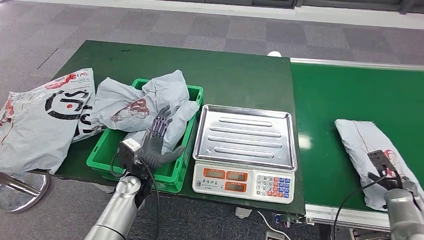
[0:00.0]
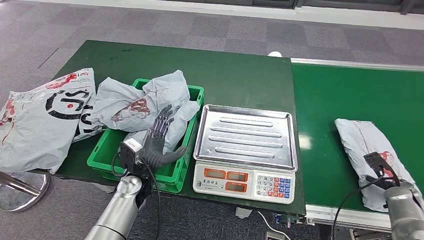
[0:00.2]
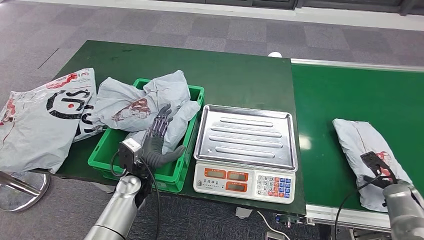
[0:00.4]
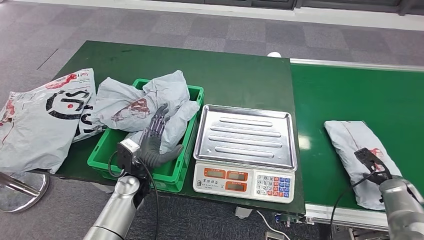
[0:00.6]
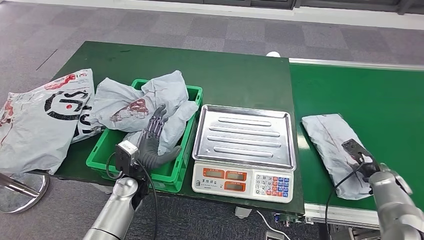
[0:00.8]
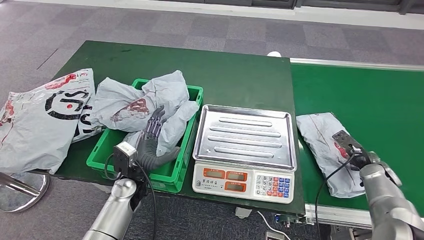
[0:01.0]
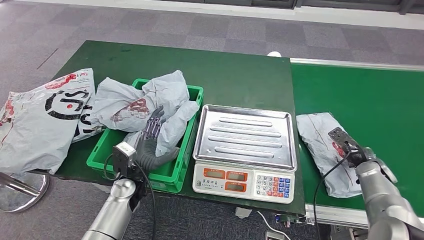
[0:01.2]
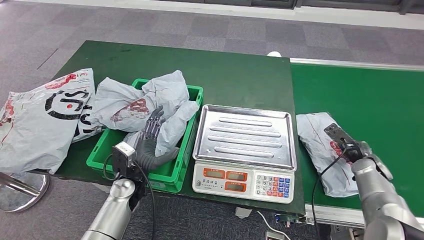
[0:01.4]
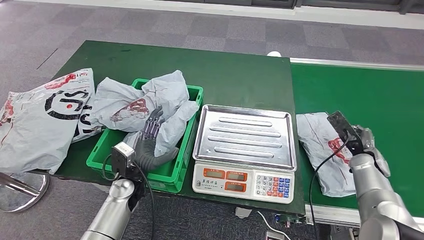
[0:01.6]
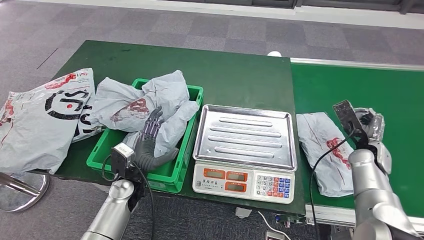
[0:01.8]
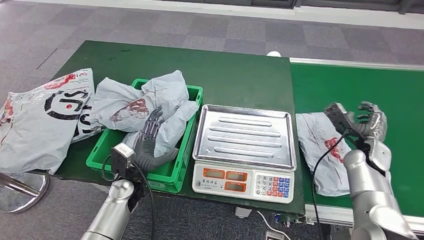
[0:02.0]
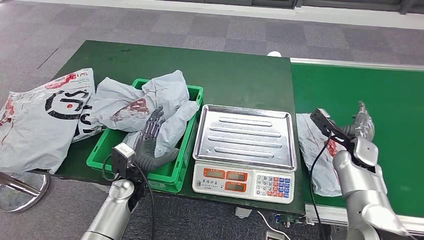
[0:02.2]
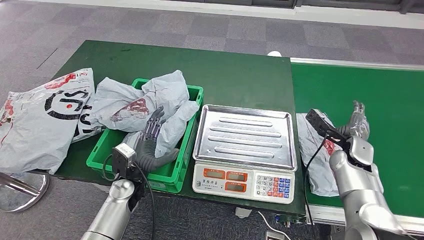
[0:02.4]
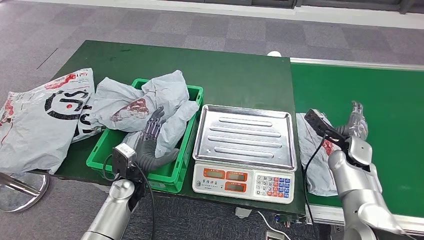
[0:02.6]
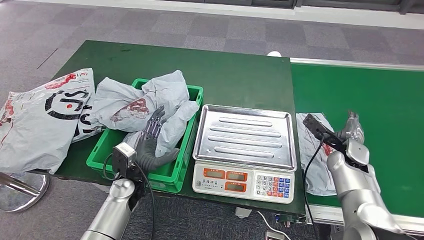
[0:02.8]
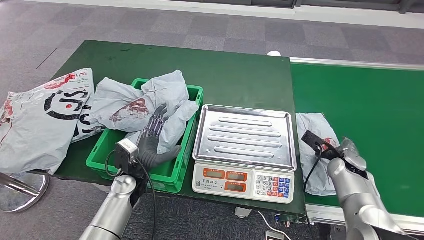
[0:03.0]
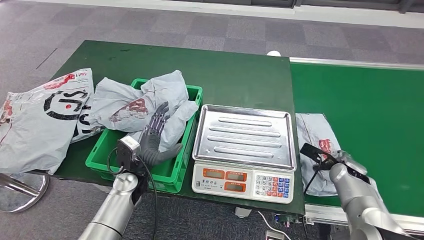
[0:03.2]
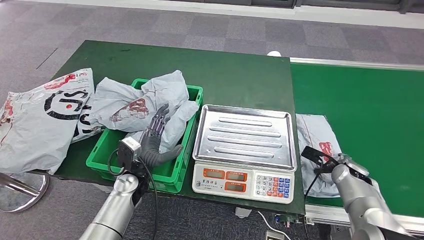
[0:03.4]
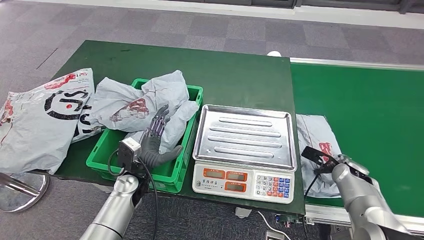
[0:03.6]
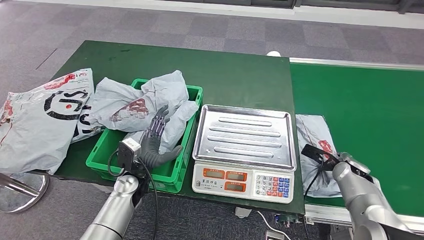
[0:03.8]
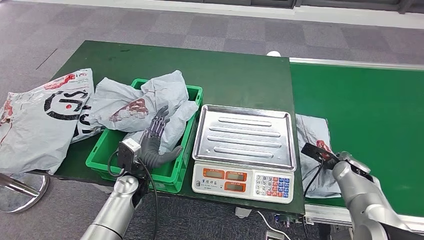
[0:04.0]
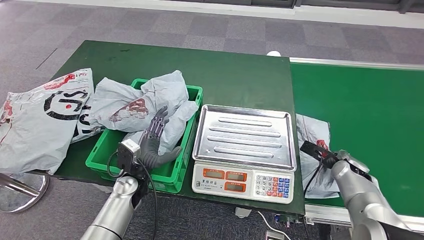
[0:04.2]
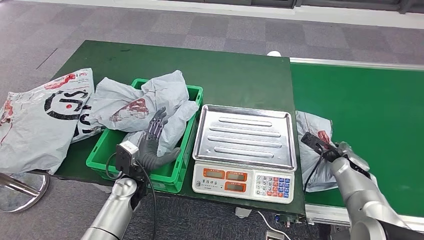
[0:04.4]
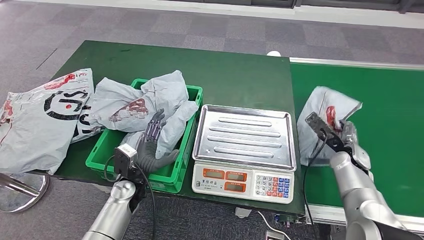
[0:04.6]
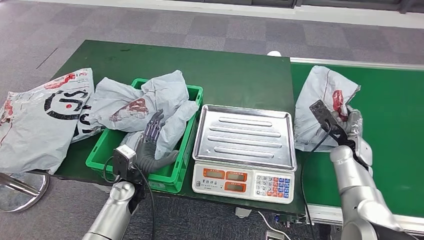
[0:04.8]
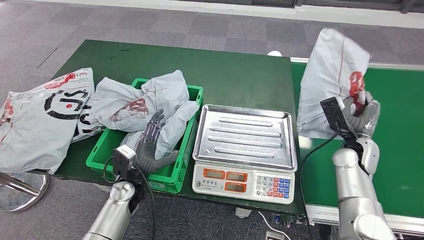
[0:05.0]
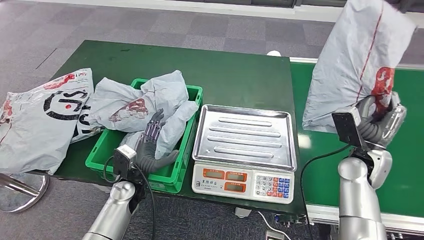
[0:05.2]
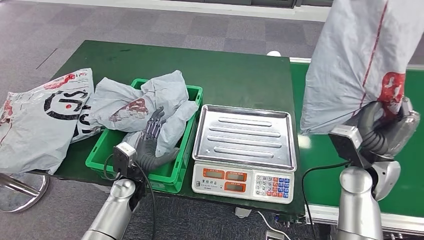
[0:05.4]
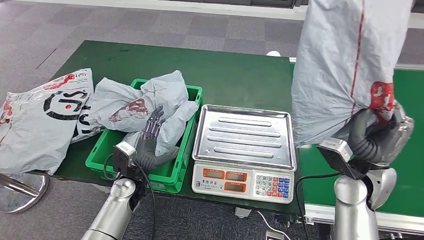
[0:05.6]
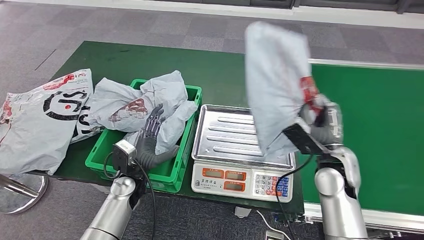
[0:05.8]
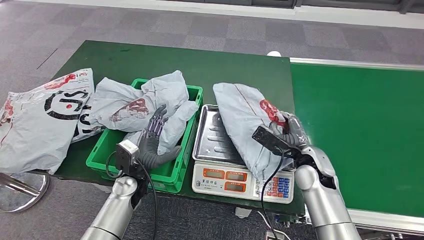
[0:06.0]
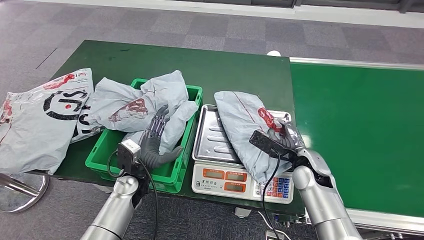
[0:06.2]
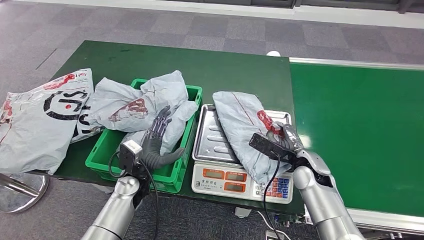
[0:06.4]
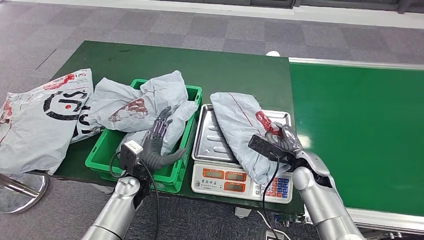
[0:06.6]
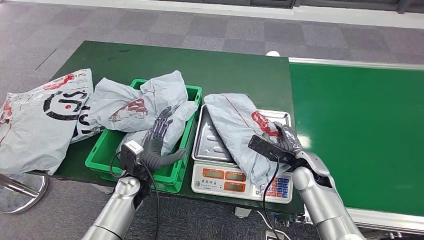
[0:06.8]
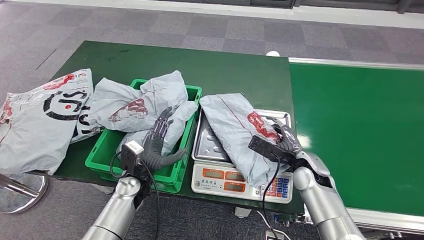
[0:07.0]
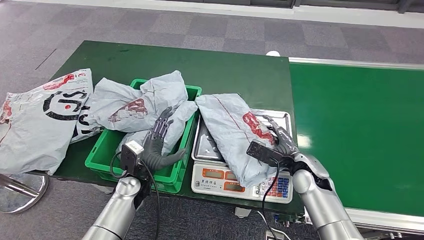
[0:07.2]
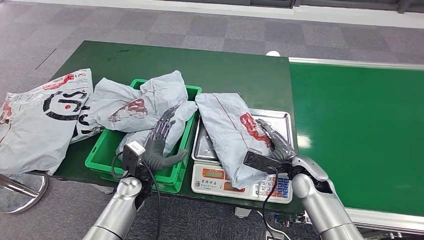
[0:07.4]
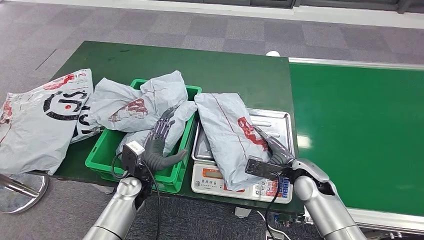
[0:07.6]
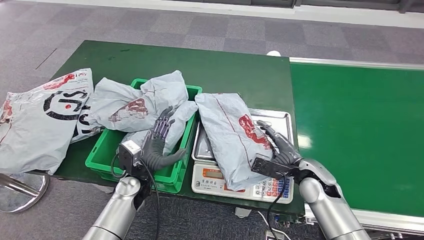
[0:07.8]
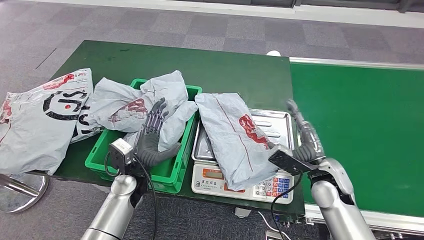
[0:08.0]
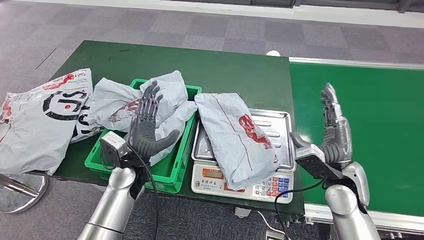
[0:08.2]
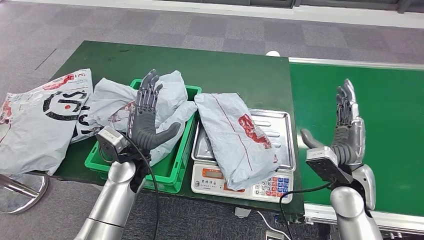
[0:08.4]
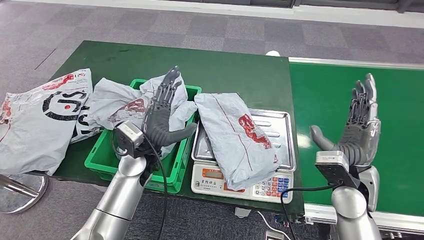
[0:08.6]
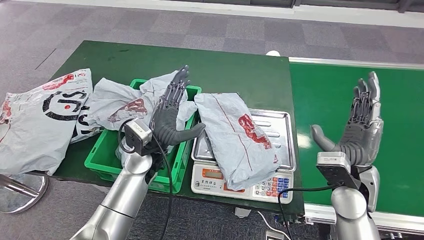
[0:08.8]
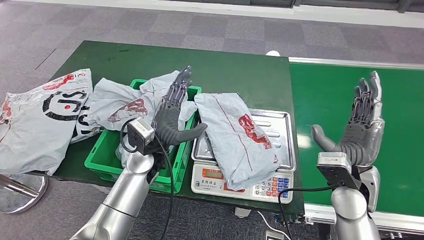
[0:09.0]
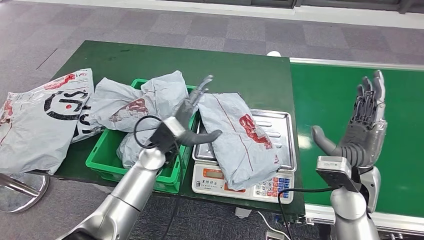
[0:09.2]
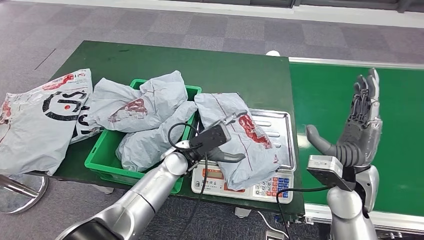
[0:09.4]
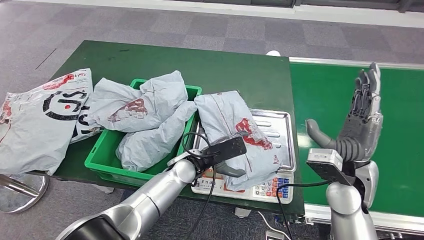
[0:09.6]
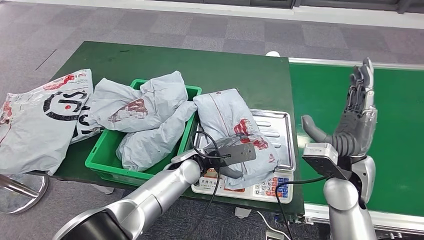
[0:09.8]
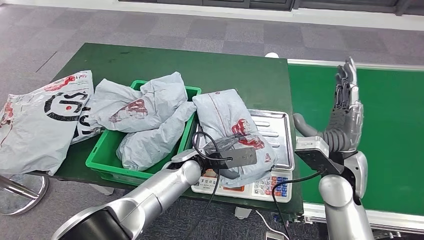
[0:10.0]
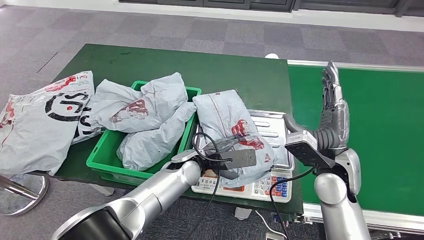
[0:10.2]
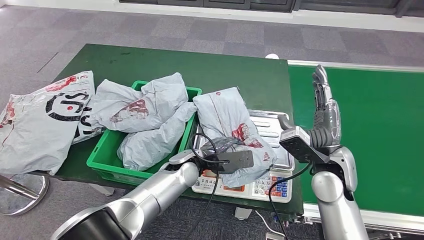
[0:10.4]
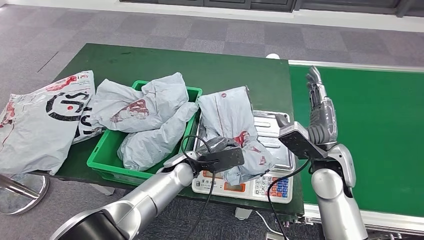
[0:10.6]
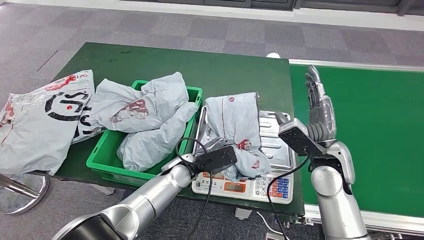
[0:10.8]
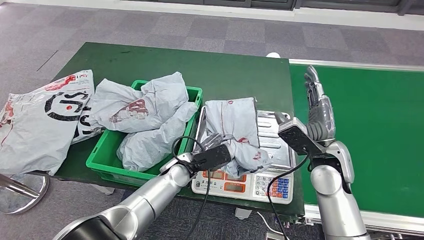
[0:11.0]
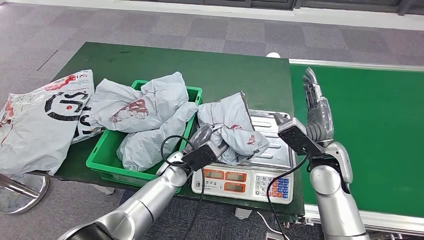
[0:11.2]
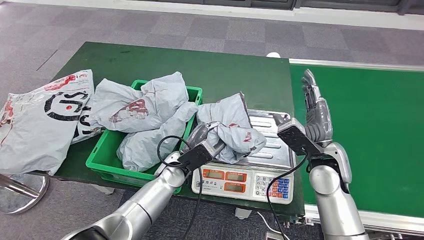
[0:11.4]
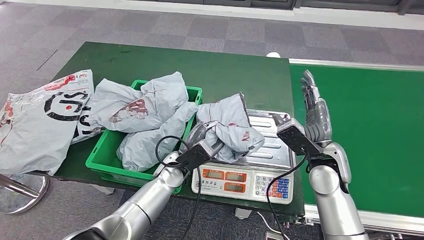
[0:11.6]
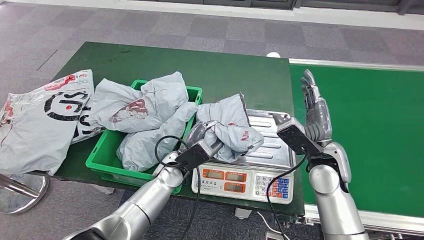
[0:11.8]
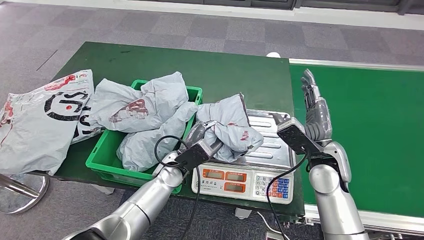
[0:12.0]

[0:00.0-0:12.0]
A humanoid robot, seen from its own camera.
Step, 0:00.0 to 0:05.0: Pick up the parcel from the conveyor belt.
Step, 0:05.2 to 0:07.8: Place the parcel onto the inbound machine.
0:00.0 to 0:01.6: The right hand is displaced forward and to the left by about 15 cm.
0:01.6 to 0:03.0: The right hand is displaced to the left by approximately 5 cm.
0:03.0 to 0:04.4: The hands move only a little.
0:04.4 to 0:06.0: The right hand heads to the left and upward, covering approximately 15 cm.
0:07.6 to 0:09.0: The left hand travels upward and to the right by some 10 cm, while the right hand heads upward and backward, covering roughly 10 cm.

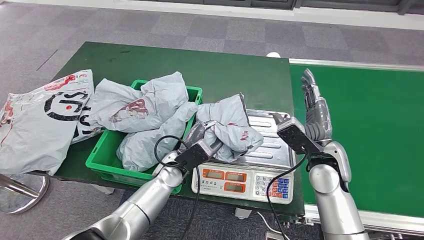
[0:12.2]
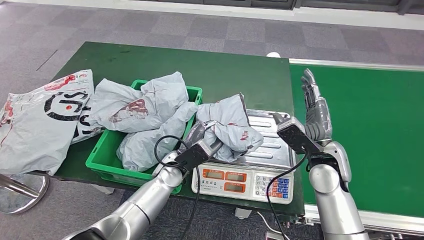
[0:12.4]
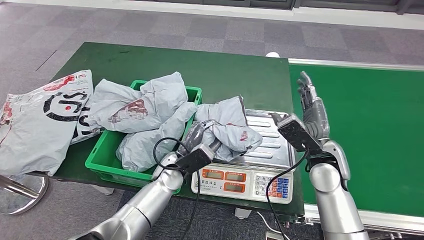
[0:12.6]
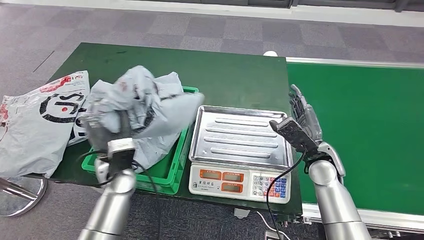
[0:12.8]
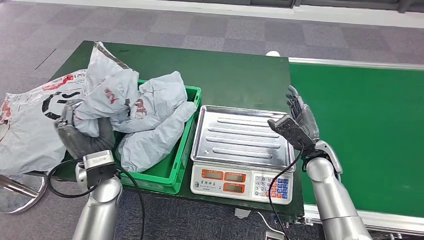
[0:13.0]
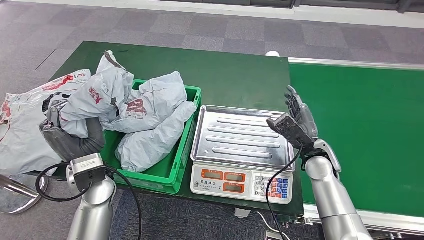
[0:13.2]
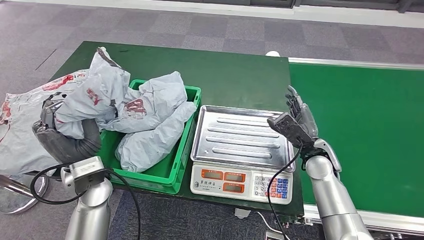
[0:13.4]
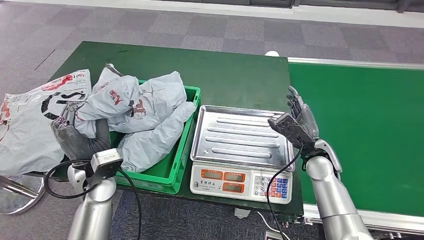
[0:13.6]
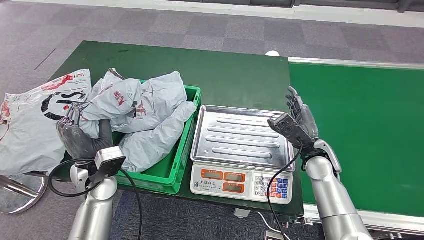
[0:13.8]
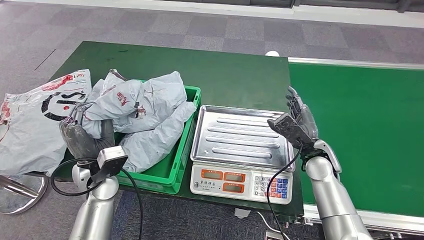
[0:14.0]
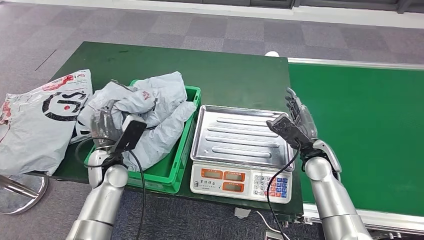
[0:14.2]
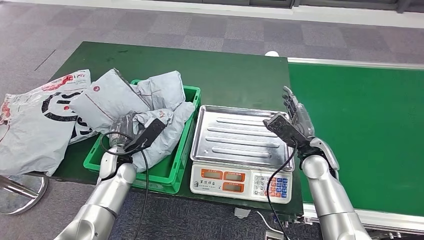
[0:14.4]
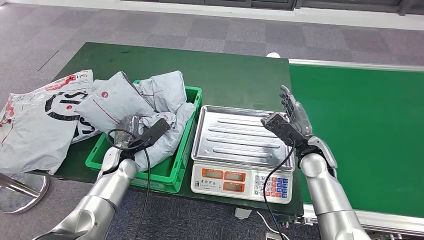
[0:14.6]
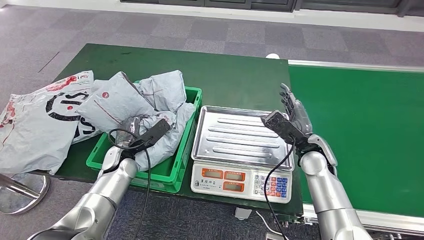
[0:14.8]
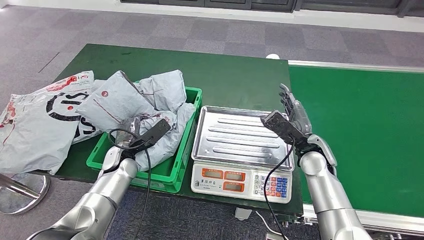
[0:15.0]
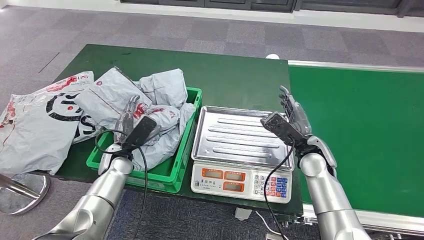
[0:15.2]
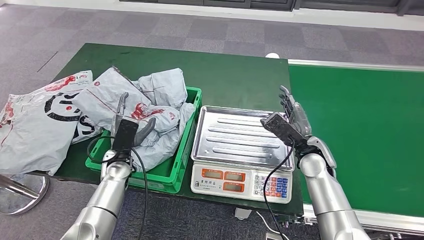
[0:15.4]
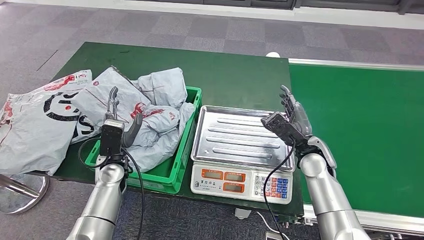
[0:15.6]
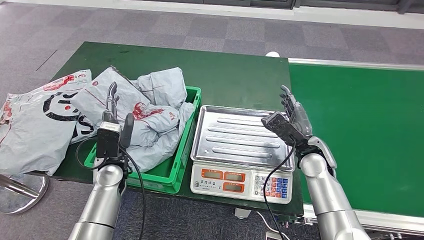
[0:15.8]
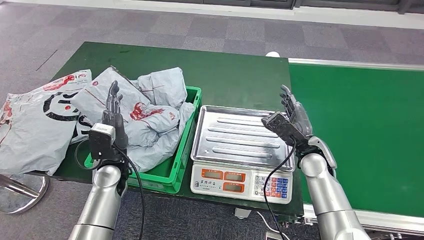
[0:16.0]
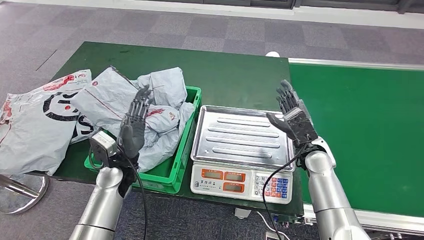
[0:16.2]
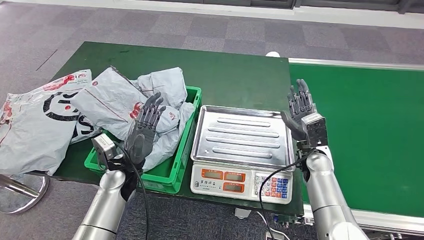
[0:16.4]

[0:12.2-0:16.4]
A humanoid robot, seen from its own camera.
Step, 0:13.6 to 0:16.4: Place the parcel into the delivery box.
